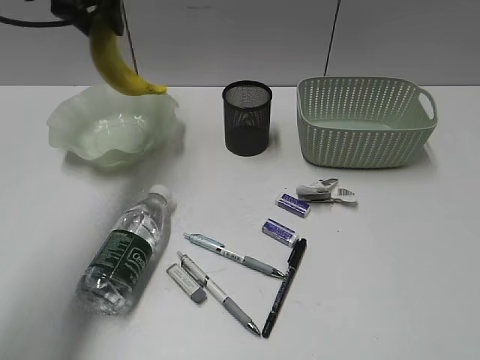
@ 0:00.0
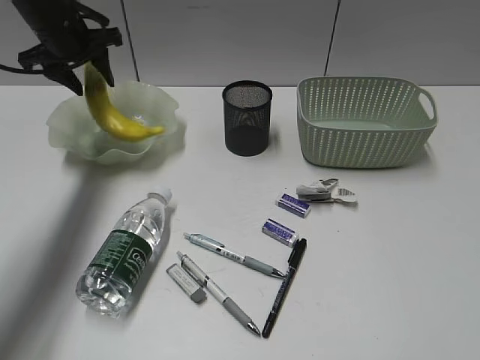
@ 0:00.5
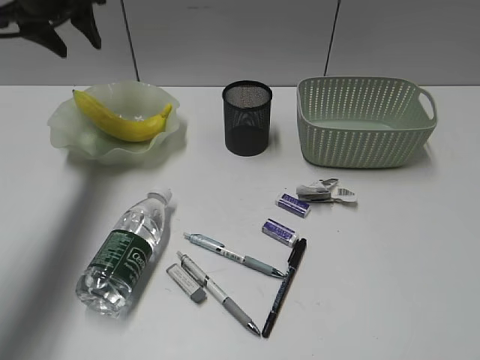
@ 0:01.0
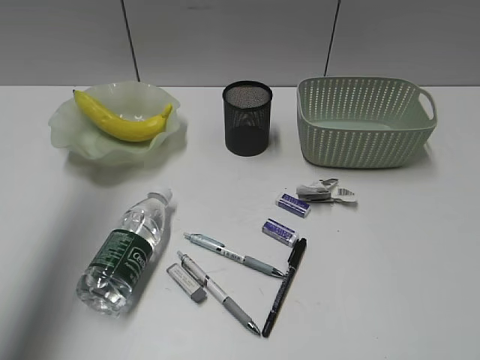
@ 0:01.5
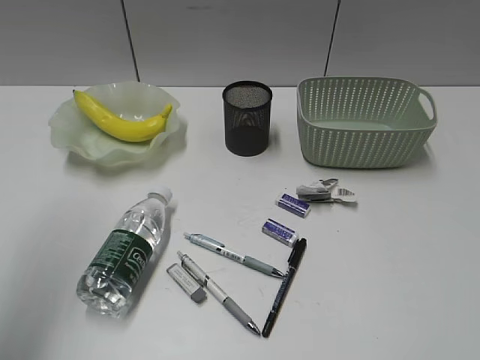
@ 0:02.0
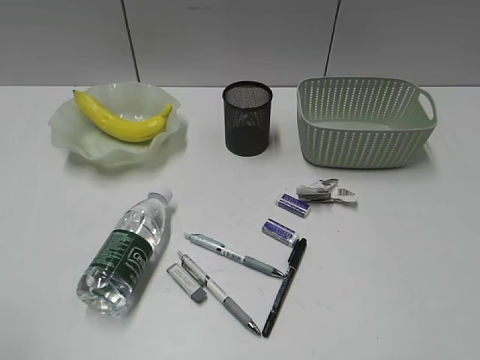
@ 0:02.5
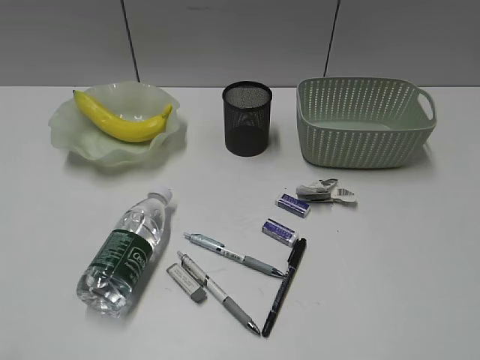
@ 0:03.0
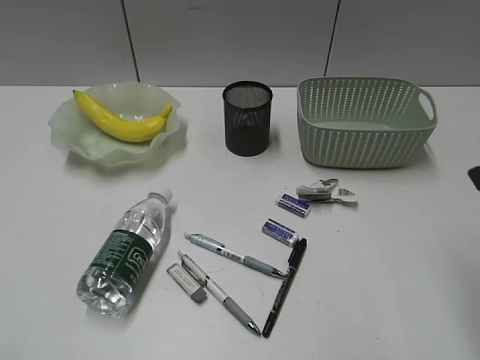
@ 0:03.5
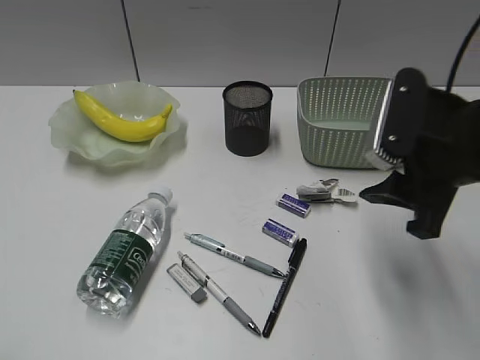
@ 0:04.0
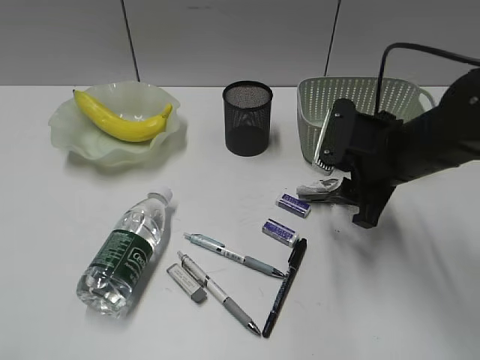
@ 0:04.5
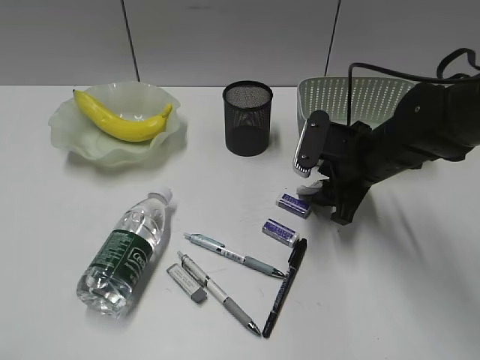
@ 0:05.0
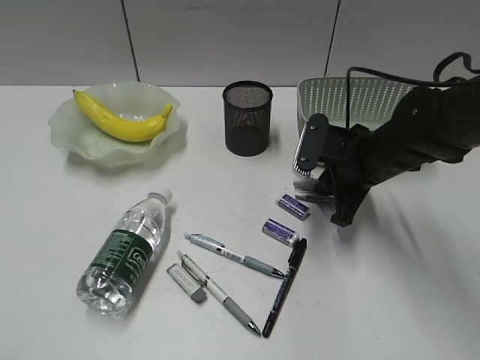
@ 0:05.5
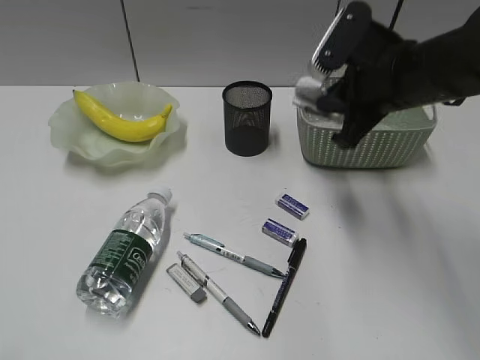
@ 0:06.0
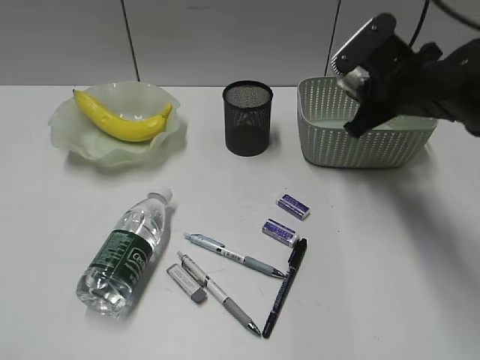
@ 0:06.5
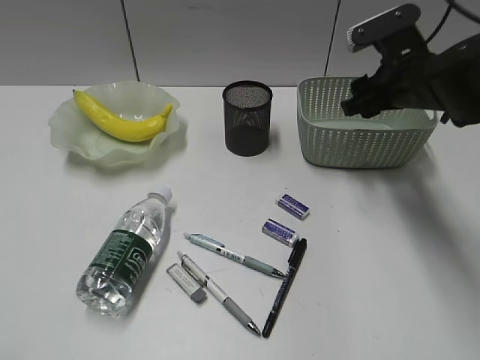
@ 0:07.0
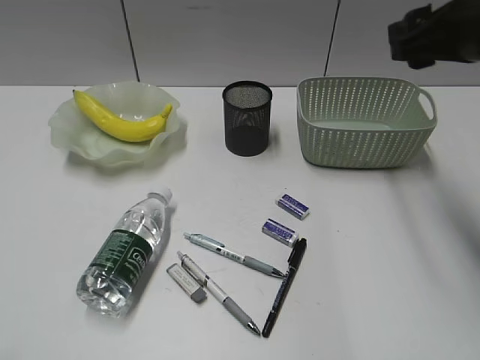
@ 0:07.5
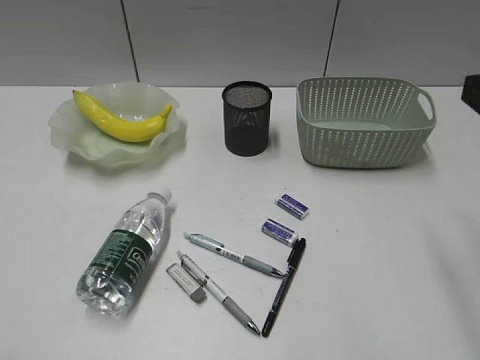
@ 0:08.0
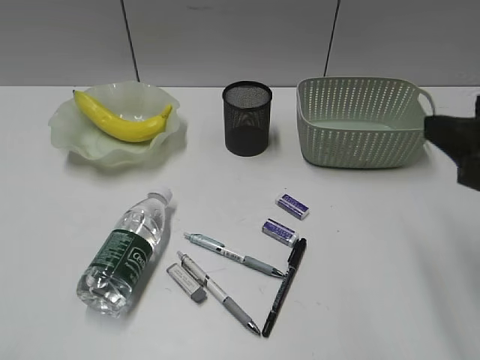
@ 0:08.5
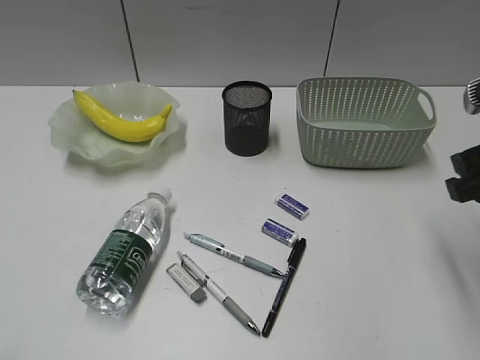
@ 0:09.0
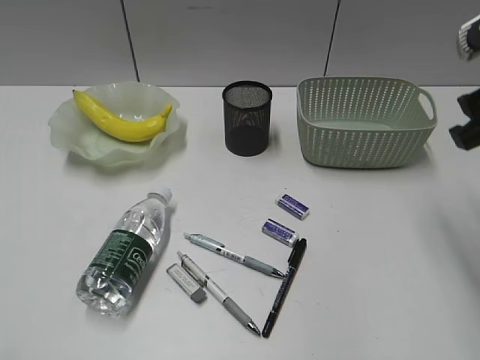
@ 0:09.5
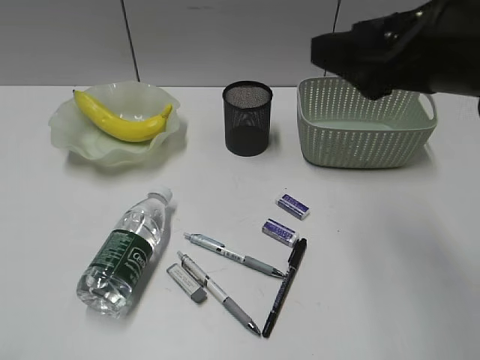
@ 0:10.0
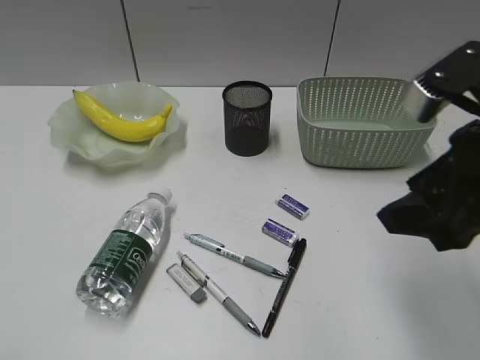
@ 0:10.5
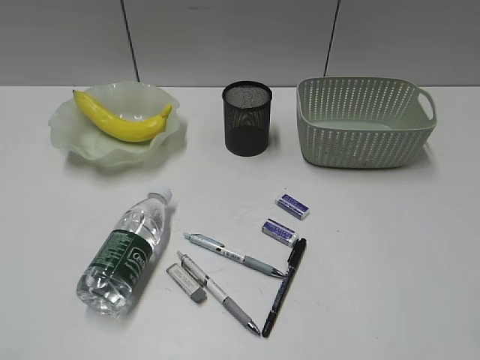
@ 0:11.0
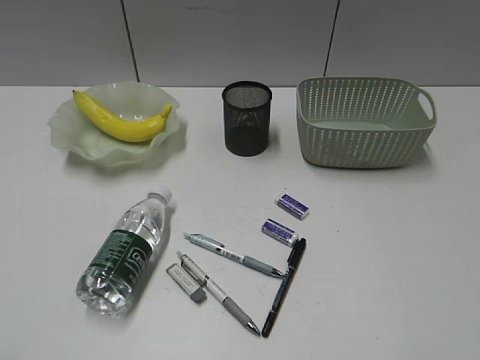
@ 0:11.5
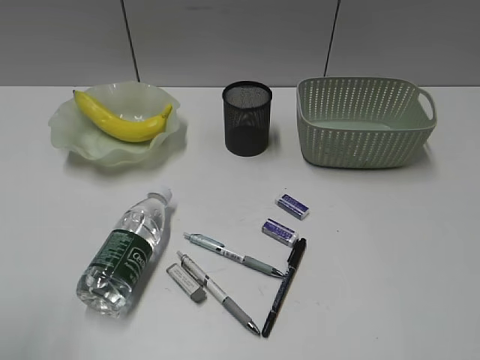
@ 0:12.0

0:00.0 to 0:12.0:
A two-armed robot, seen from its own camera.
Step, 0:01.0 to 0:05.0: Grasp the waste paper with right gripper.
Step, 0:05.5 to 0:06.5: Place the waste paper in the basket with right gripper.
0:00.0 to 0:02.0: The left gripper shifts roughly 30 cm backward and to the left.
0:02.0 to 0:04.0: The right gripper heads forward and to the left, covering some 25 cm. Meanwhile the left gripper is displaced backward and downward by about 25 cm.
0:04.0 to 0:06.0: The right gripper moves forward, approximately 10 cm, travels downward and back again, some 10 cm each way, and closes its fingers.
0:06.0 to 0:08.0: The right gripper moves backward and to the right, about 20 cm, and opens up.
0:08.0 to 0:10.0: The right gripper moves to the left and forward, some 10 cm.
0:10.0 to 0:12.0: The right gripper is displaced backward and to the right by some 25 cm. The left gripper shifts approximately 5 cm forward.

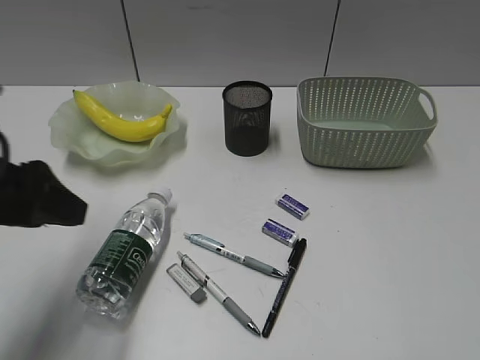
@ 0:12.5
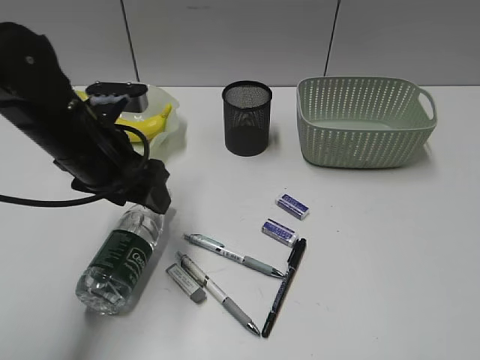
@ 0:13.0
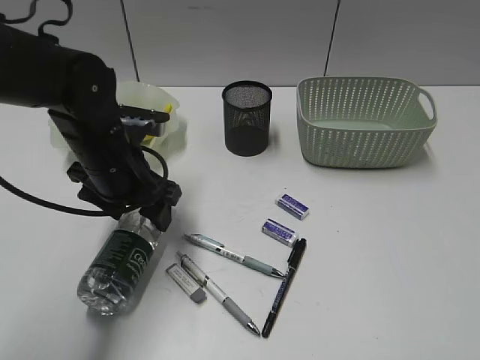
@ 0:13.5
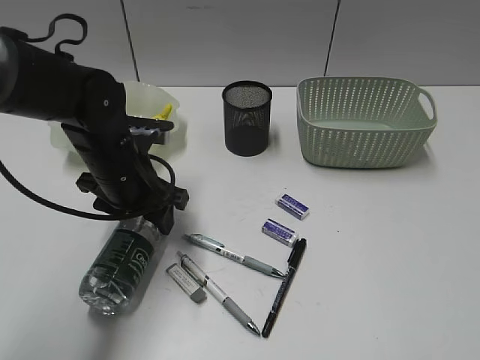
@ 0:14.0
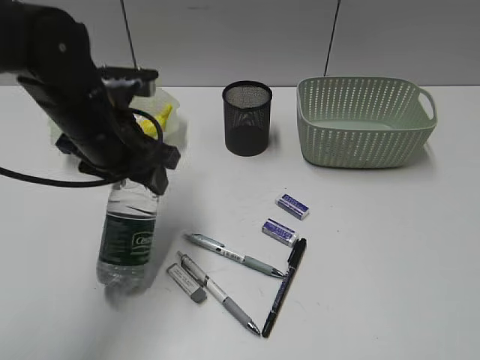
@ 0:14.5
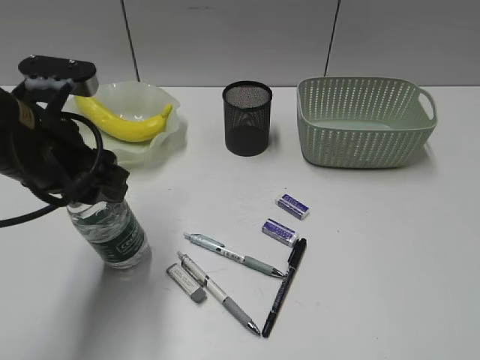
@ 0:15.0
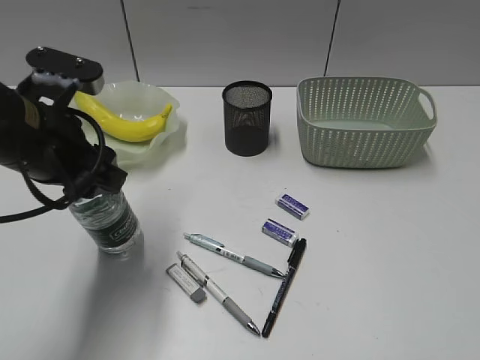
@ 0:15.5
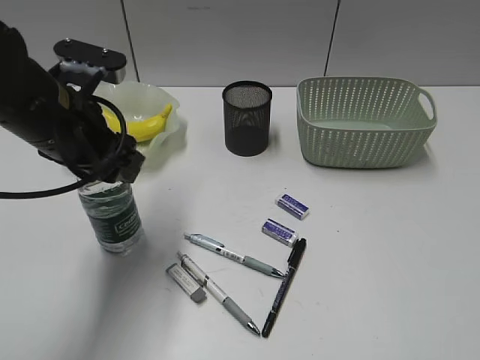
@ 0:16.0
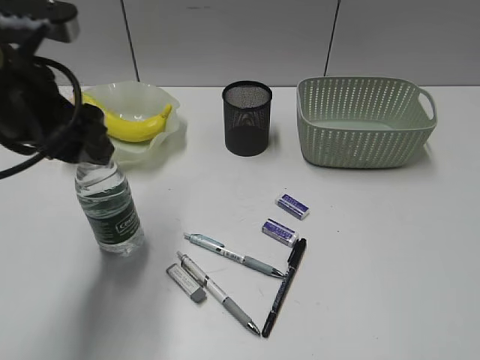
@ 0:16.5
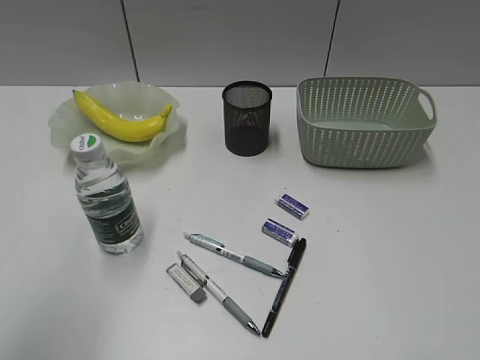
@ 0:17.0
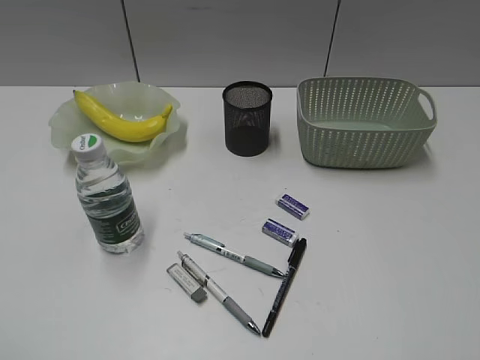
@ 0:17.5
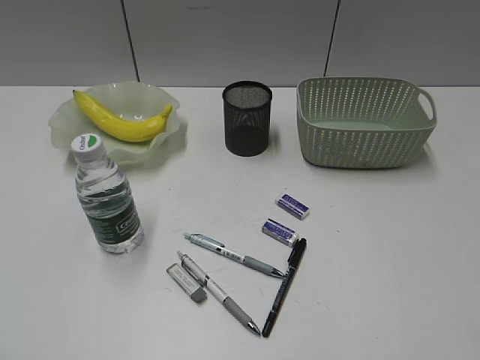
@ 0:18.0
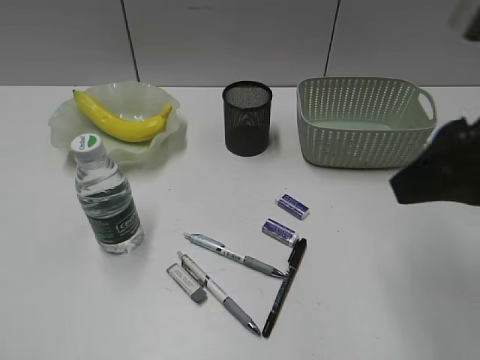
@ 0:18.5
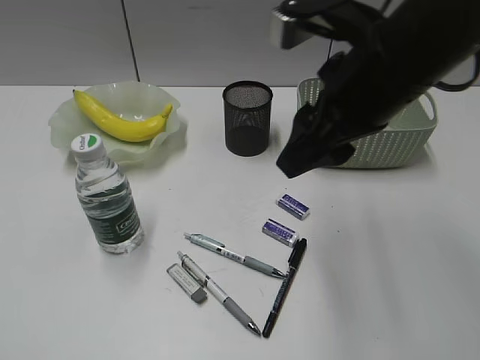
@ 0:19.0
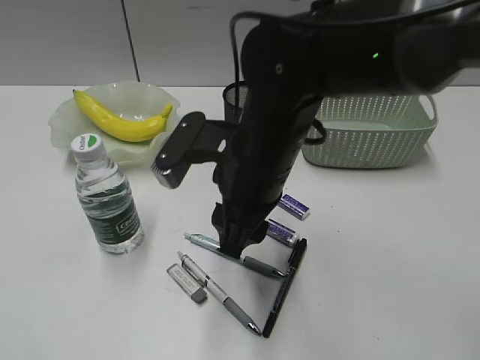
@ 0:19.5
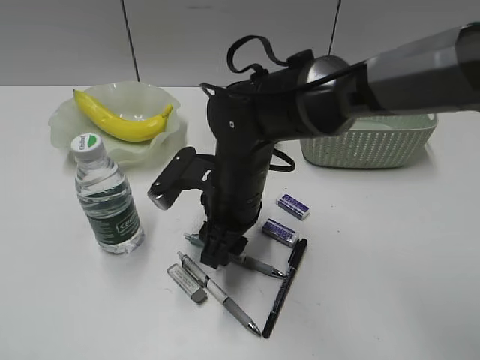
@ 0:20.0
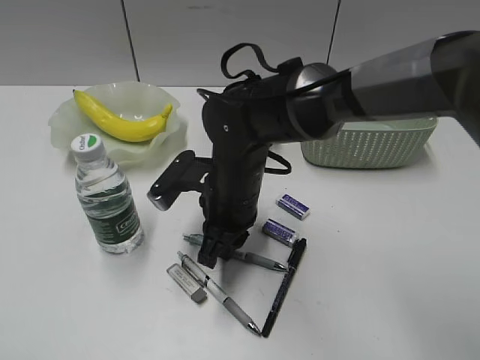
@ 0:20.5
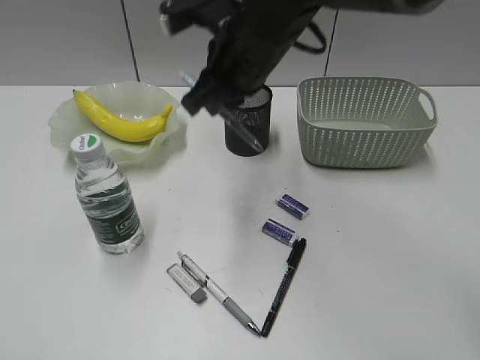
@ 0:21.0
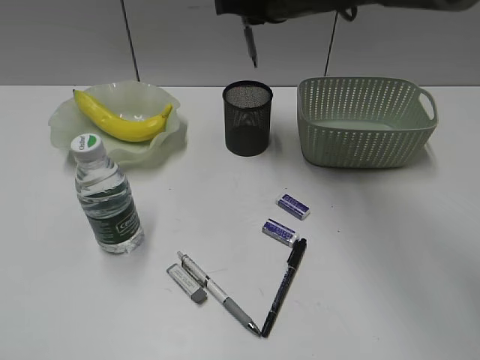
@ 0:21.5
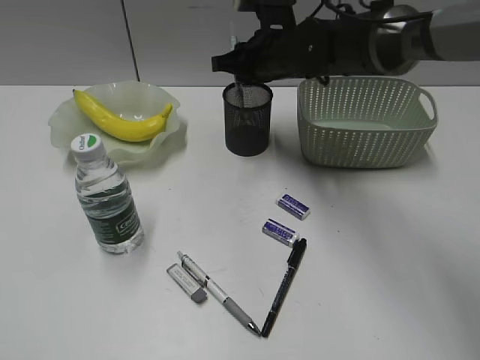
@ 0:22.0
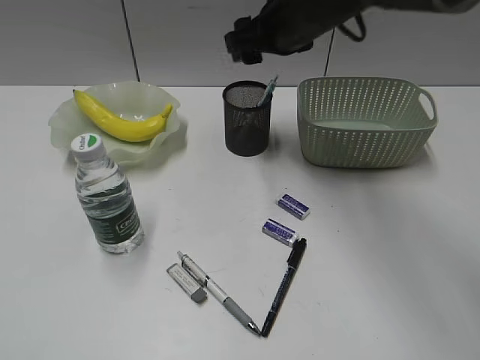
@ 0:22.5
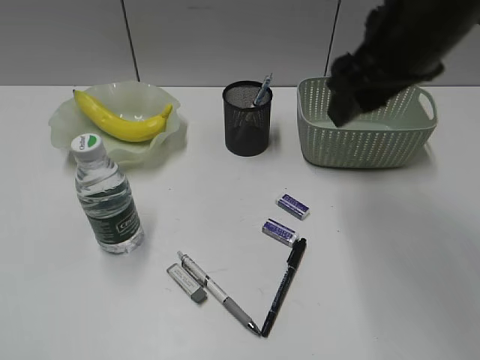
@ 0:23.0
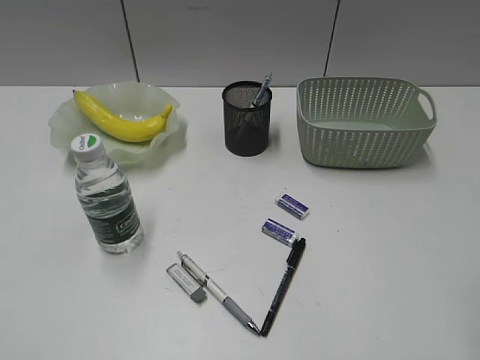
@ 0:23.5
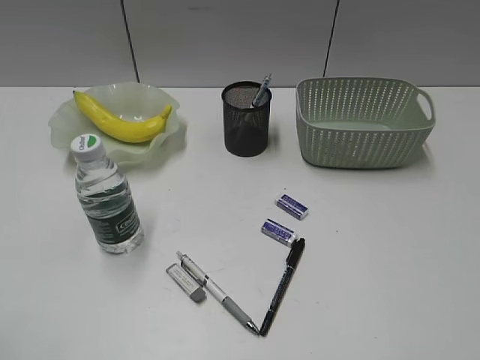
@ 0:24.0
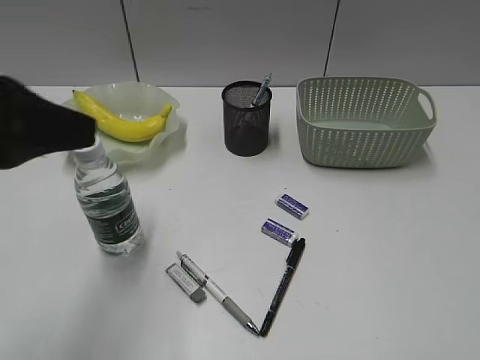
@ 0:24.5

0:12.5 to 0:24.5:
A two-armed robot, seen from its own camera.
Step, 0:14.0 to 0:16.5: Stand the bottle with left gripper.
Step, 0:17.0 to 0:20.5: Grasp the blue pen with right gripper.
Step, 0:21.0 to 0:22.0: Place the blue pen in pen holder with right gripper.
0:12.5 to 0:14.5: The left gripper is displaced forward, to the right and downward by roughly 15 cm.
0:14.5 to 0:16.5: The left gripper heads upward and backward, covering approximately 10 cm.
0:16.5 to 0:18.5: The right gripper heads forward and to the left, covering about 20 cm. Meanwhile the left gripper heads backward and to the left, covering about 30 cm.
0:18.5 to 0:20.5: The right gripper goes approximately 30 cm to the left, downward and forward, and closes its fingers.
0:20.5 to 0:22.5: The right gripper goes up and down, some 15 cm each way, reversing 2 times, and opens its fingers.
0:22.5 to 0:24.5: The right gripper is displaced backward and to the right by approximately 50 cm; the left gripper shifts roughly 20 cm forward and to the right.

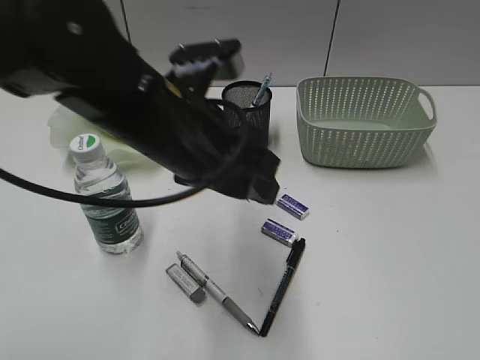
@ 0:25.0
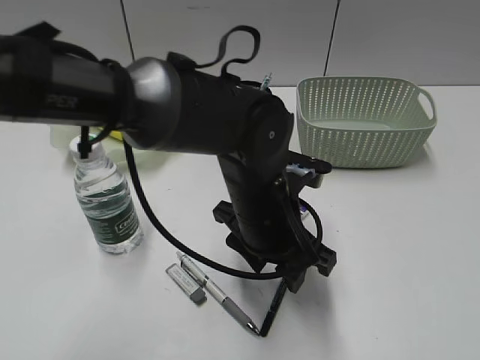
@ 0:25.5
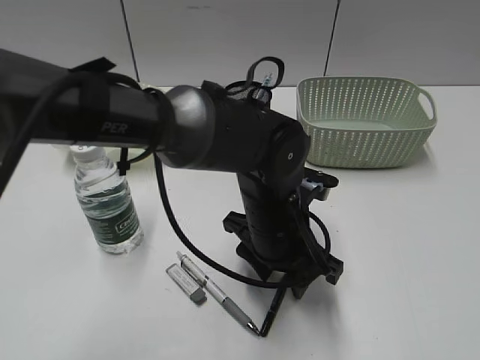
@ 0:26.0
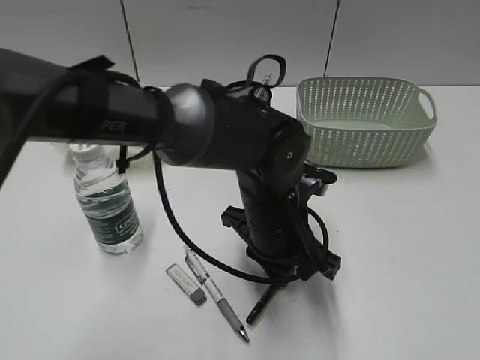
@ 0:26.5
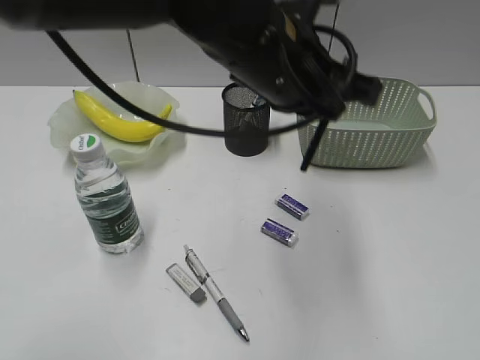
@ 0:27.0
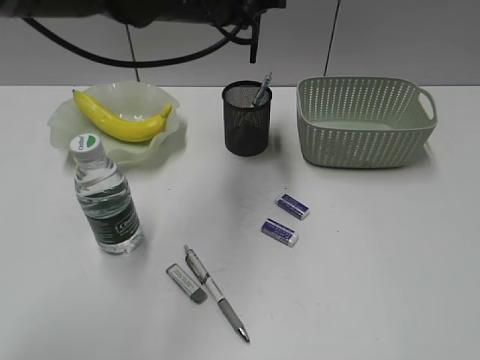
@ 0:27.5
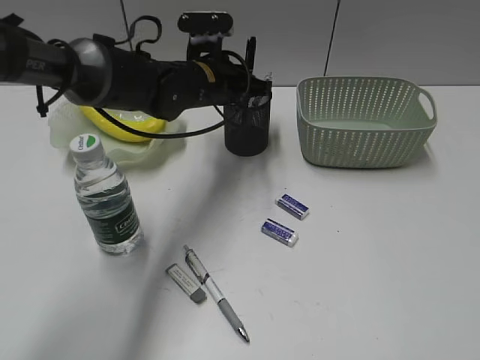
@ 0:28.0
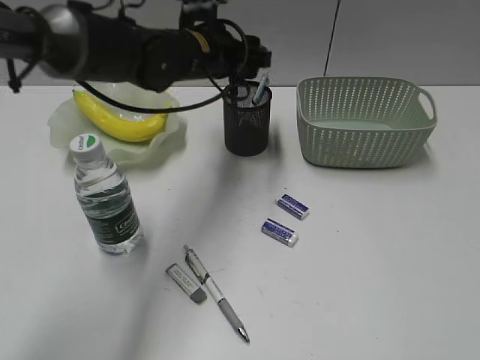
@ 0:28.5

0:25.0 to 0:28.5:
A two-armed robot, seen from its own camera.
Step, 0:26.5 to 0:28.0: Place the black pen in pen holder with left gripper.
0:25.0 to 0:27.0: The left gripper moves to the right, roughly 10 cm, goes downward and returns, some 15 cm each way, and closes.
0:27.0 to 0:28.5: The left gripper shifts roughly 20 cm forward, to the left and downward, and opens.
